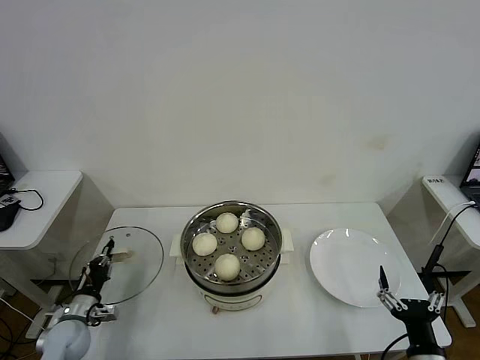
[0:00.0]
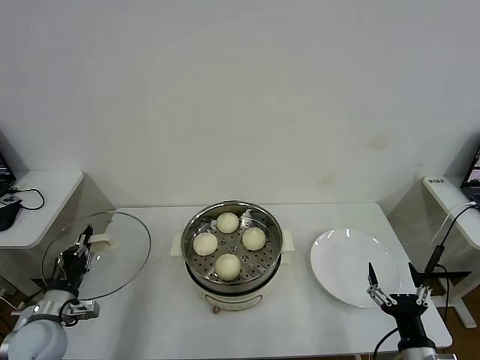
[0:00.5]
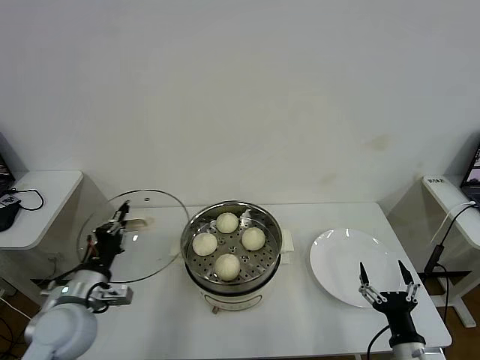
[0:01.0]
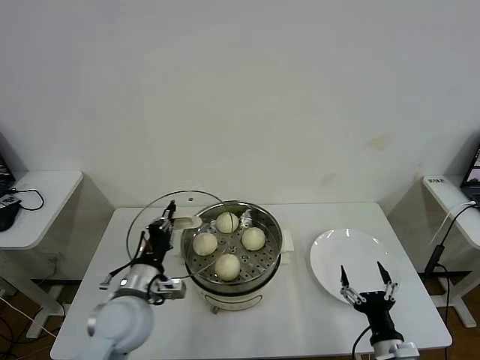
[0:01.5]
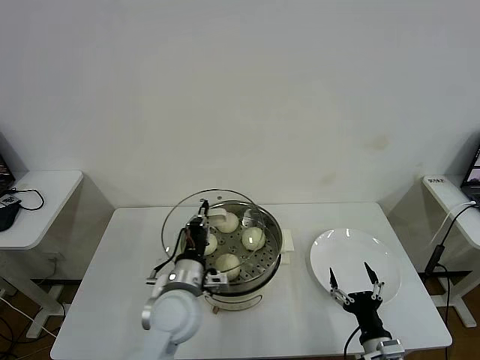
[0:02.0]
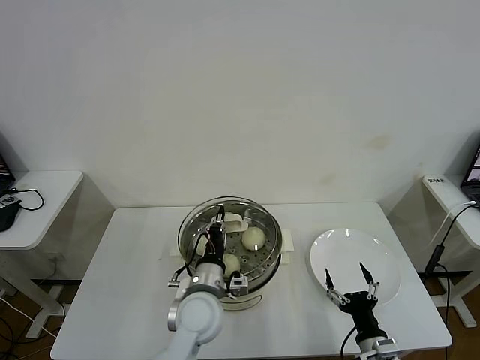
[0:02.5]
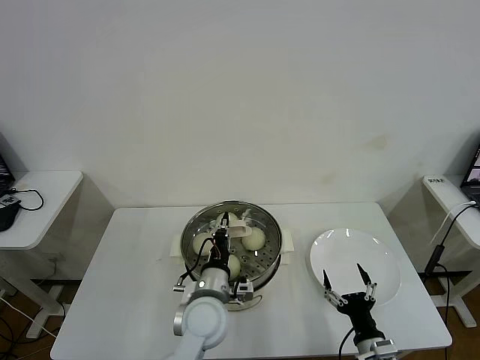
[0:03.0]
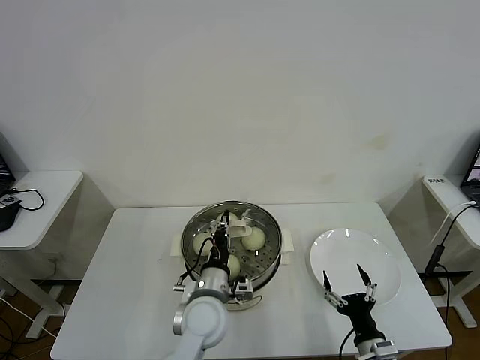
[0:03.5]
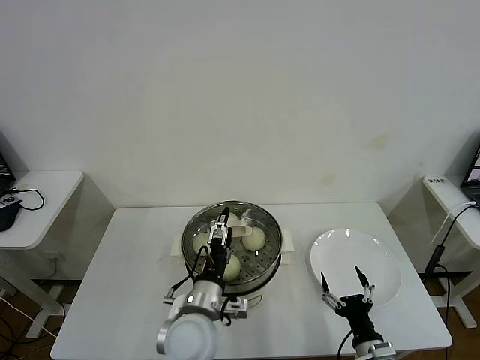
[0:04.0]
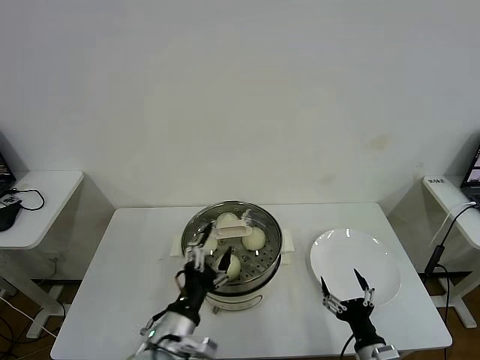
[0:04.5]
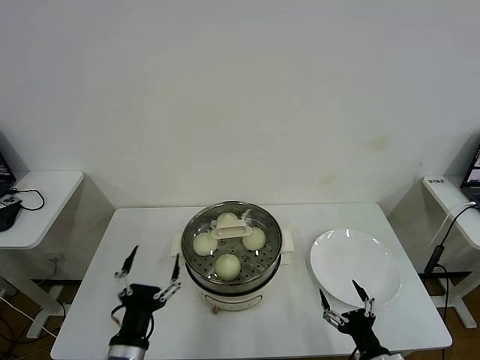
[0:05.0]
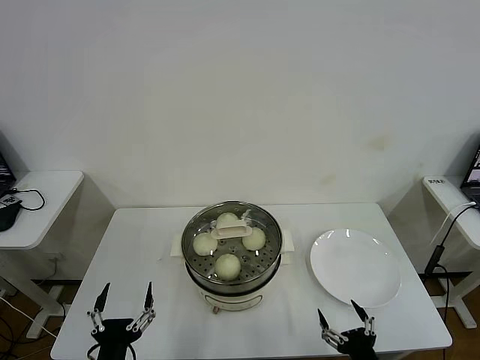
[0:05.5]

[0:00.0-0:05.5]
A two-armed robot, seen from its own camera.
Task of the whole recording: take steamed baozi put them in steamer then cover it.
Step, 0:00.0 to 0:03.5: Place the pot lid on the steamer with left gripper.
0:00.0 to 0:02.0: The right gripper ends up some 10 cm from where it was. Meanwhile the left gripper is displaced to the right and upward by approximately 30 cm.
0:02.0 to 0:03.5: The left gripper goes roughly 5 cm to the right.
0:03.5 to 0:05.5: The right gripper heads backward, covering roughly 5 cm; the left gripper shifts roughly 25 cm backward and to the left, and opens up.
